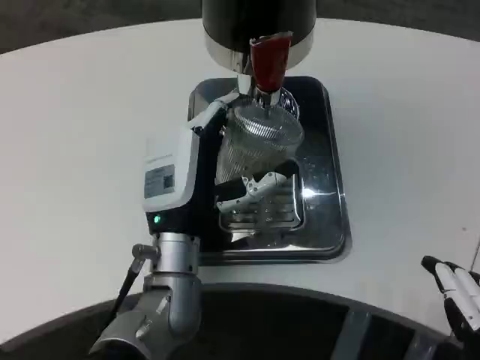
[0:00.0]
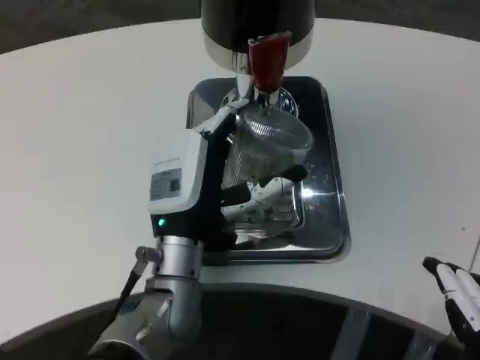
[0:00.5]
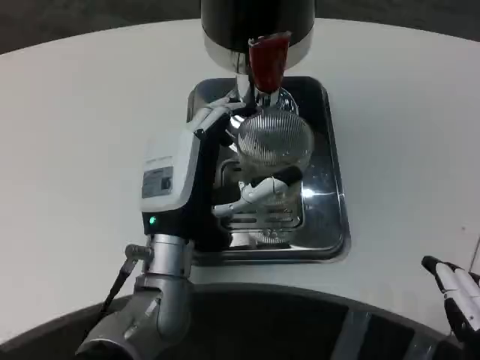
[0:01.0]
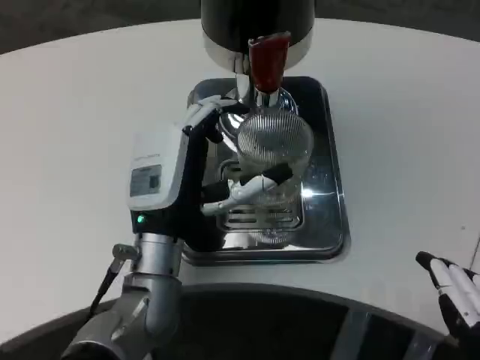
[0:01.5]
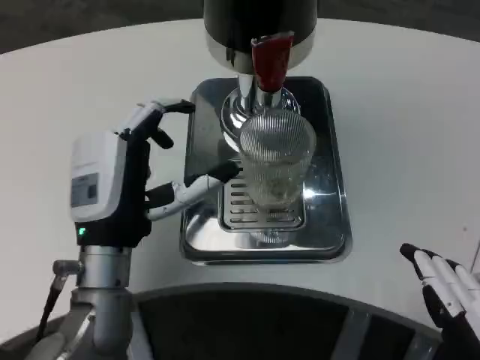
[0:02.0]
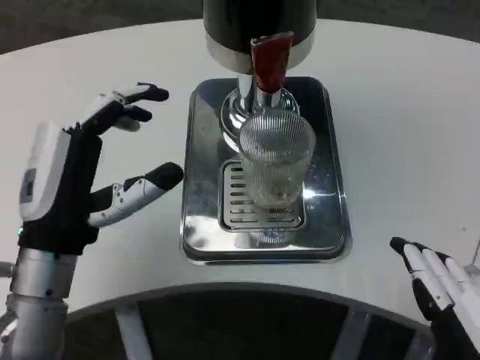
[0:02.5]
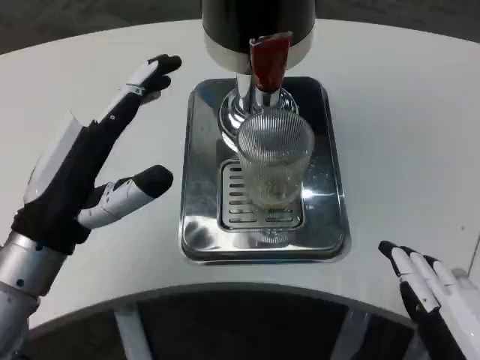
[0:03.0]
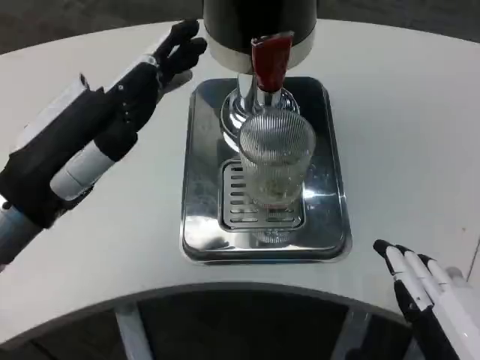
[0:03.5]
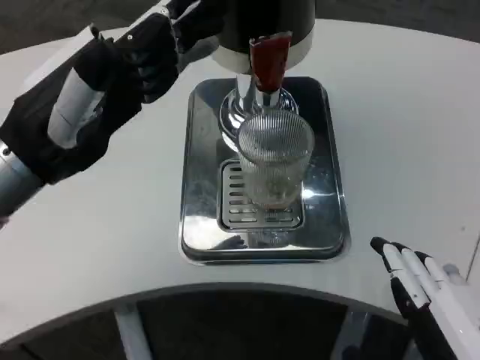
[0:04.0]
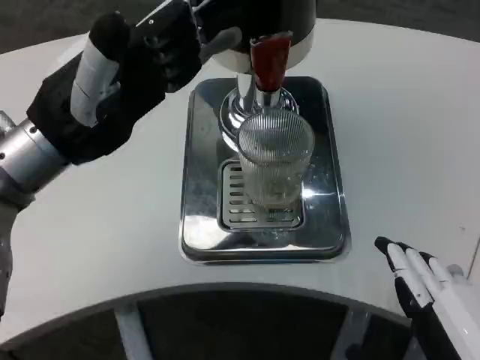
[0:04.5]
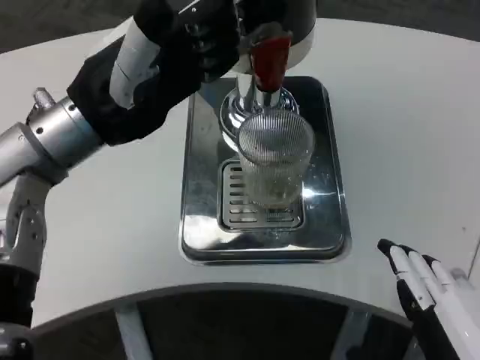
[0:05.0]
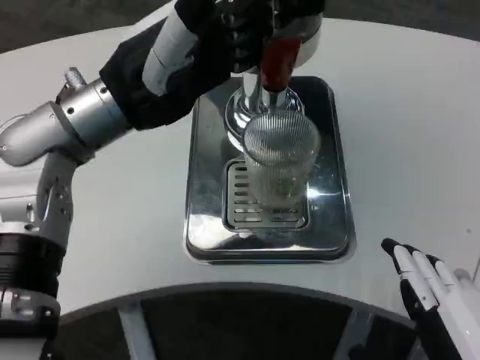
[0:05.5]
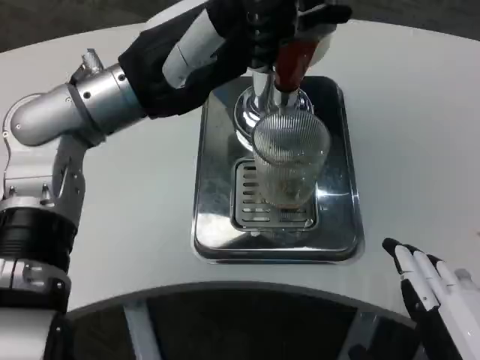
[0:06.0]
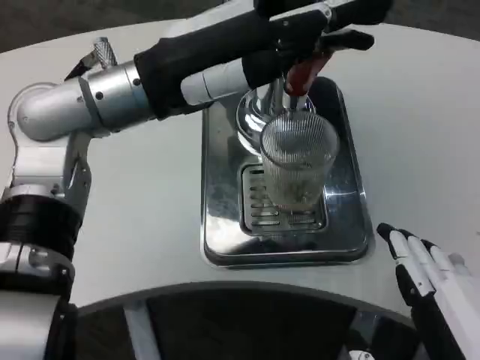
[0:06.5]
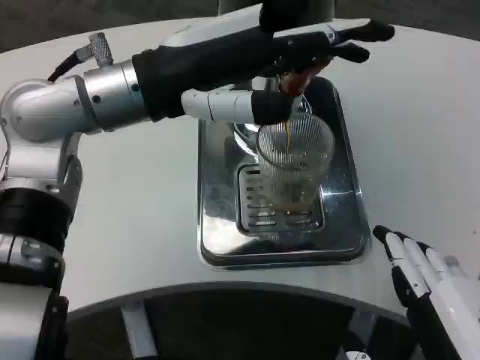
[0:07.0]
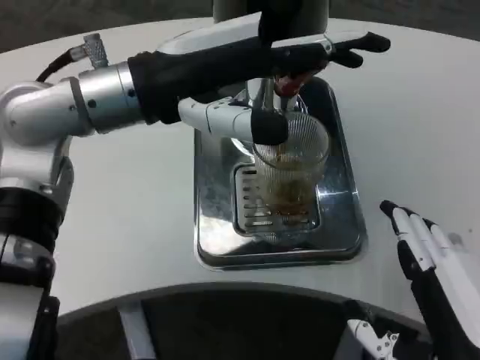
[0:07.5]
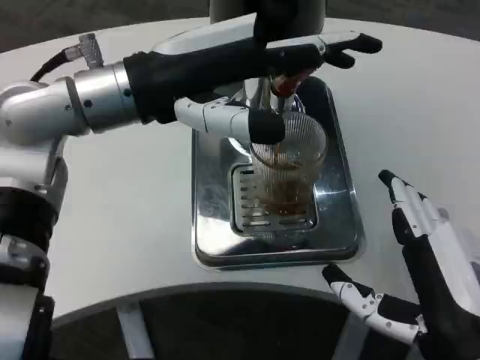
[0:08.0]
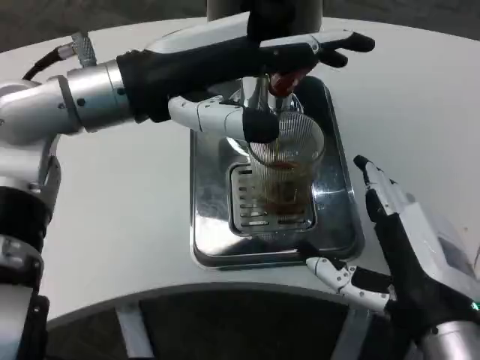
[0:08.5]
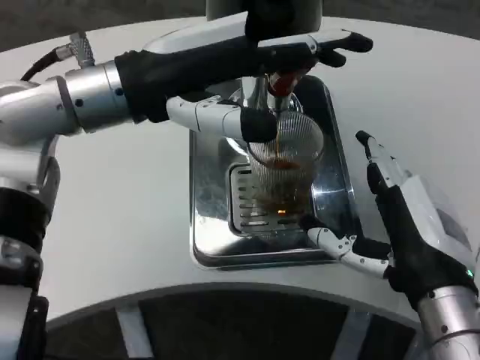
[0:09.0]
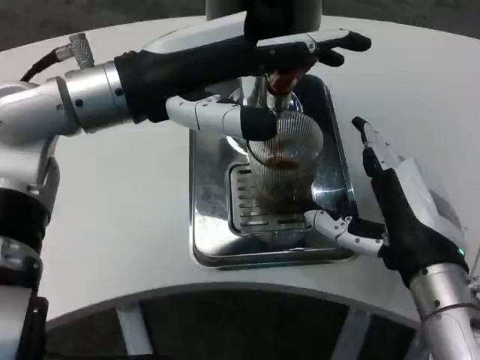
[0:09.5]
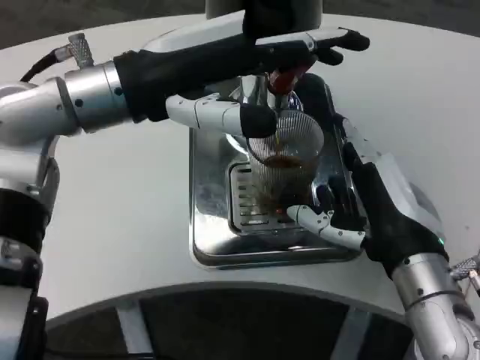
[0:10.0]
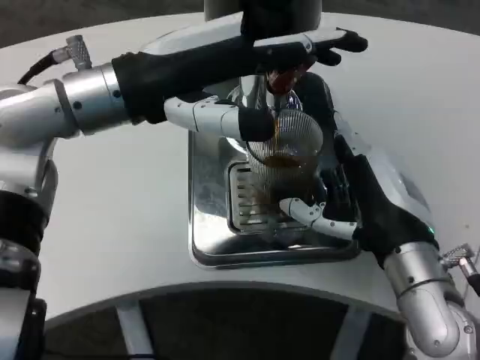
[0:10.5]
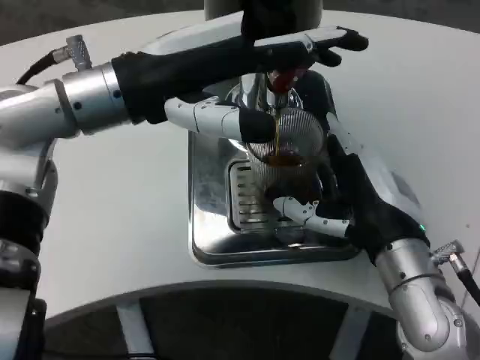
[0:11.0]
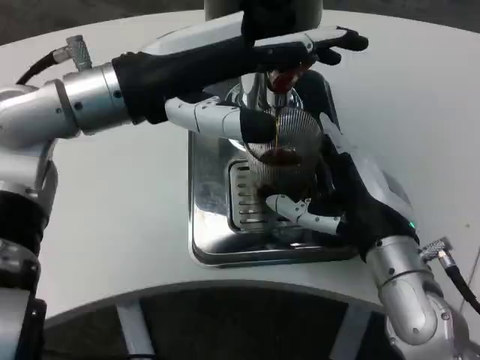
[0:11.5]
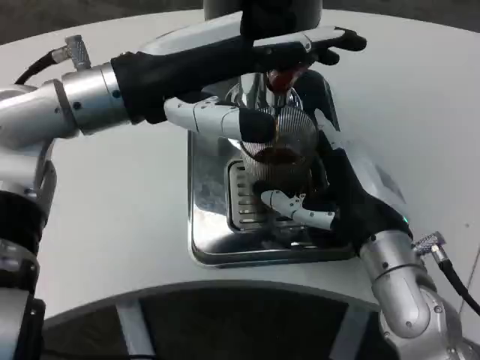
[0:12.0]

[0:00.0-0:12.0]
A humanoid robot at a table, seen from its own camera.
Task of the whole recording: Grasp the cup under the faucet to collect the drink, then remove the cup.
0:00.0 to 0:02.0: The left hand travels to the left by roughly 5 cm.
0:02.0 to 0:04.0: The left hand is displaced upward and to the left by approximately 15 cm.
0:04.0 to 0:06.0: The left hand goes roughly 10 cm forward and to the right.
0:06.0 to 0:08.0: The right hand shifts approximately 5 cm forward.
0:08.0 to 0:10.0: The right hand travels forward by approximately 10 cm.

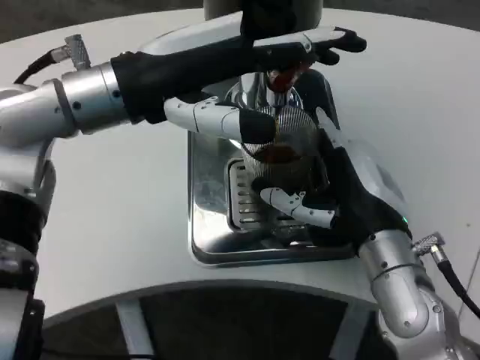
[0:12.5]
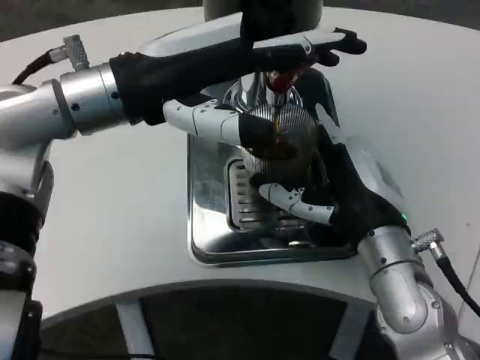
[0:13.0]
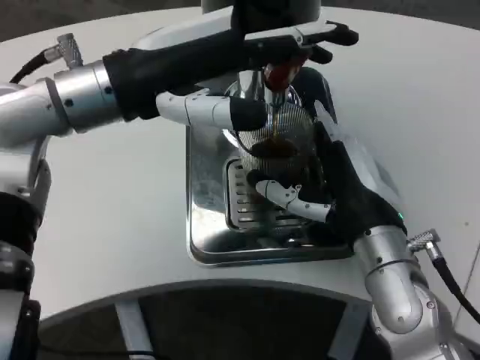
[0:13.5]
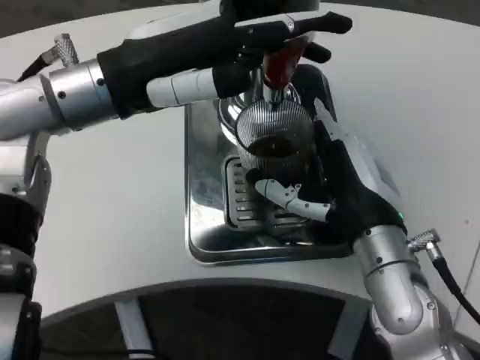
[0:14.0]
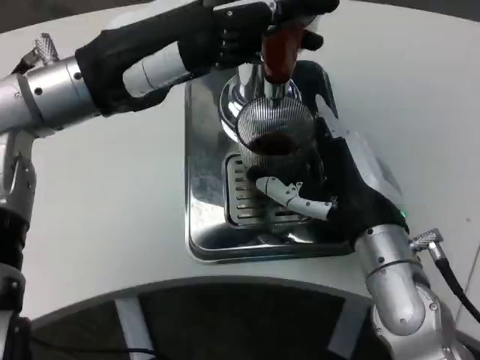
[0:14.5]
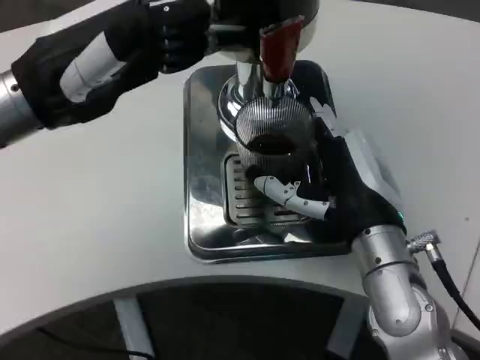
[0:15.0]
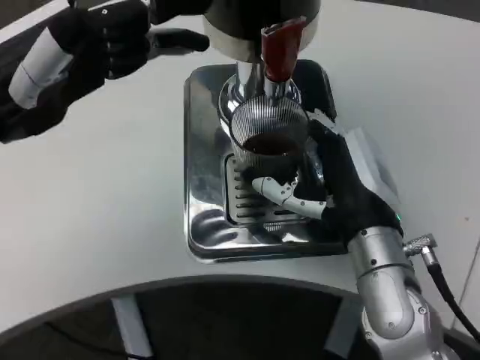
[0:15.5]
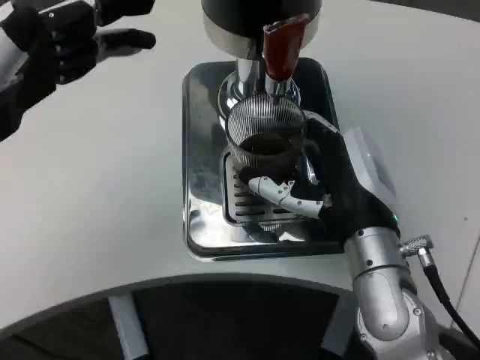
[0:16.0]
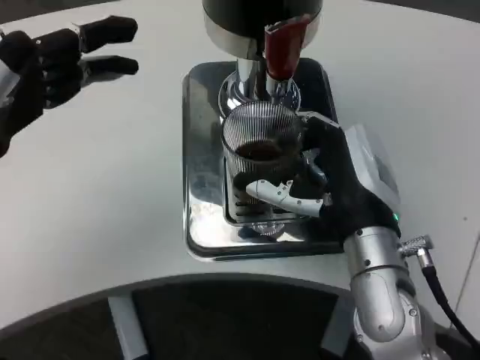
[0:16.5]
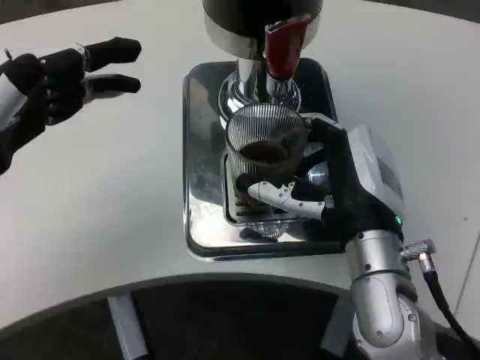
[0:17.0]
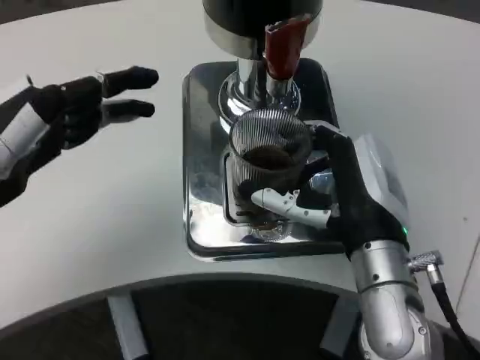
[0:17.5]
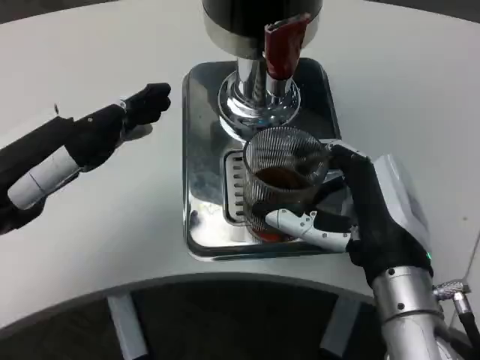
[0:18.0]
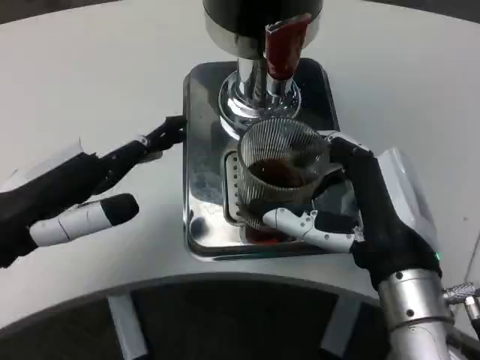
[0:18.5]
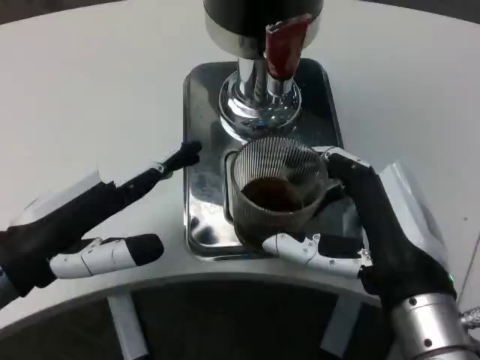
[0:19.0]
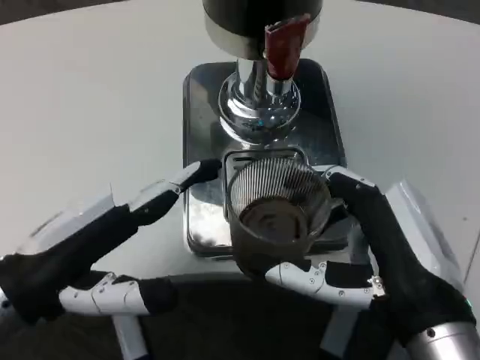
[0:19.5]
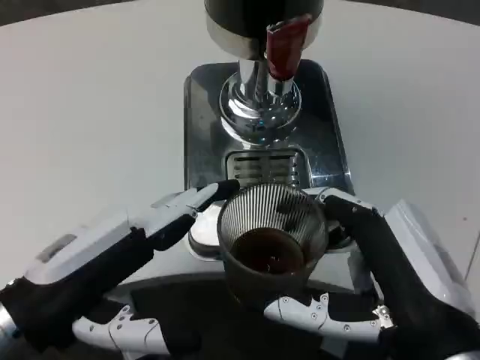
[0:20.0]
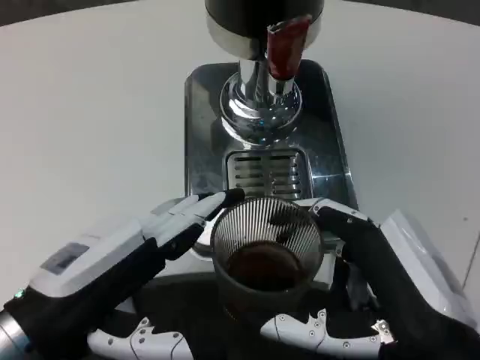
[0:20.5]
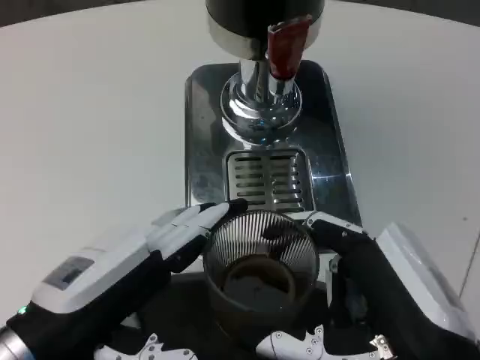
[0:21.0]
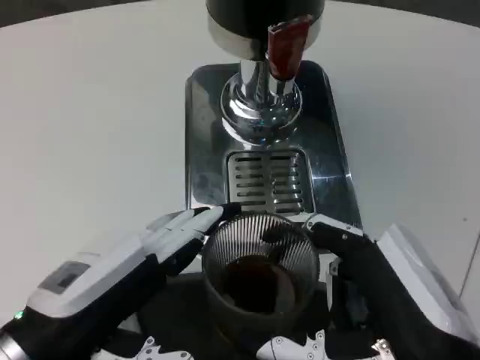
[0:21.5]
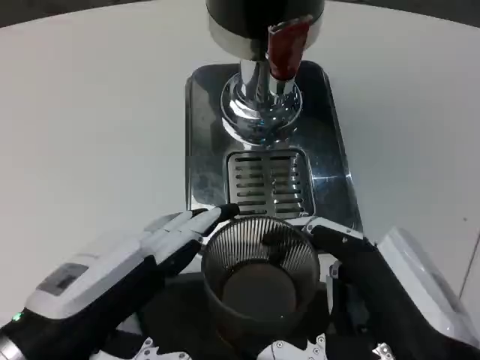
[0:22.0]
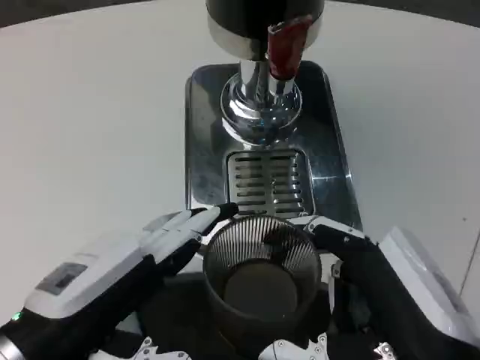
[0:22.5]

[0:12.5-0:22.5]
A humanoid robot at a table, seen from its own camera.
Task of the whole recording: Grasp the cup under the faucet to collect the drink, then remove the cup.
0:14.5 to 0:16.5: The left hand is displaced to the left and backward by roughly 10 cm.
0:16.5 to 0:18.5: The right hand is displaced backward by approximately 5 cm, while the left hand travels downward by roughly 5 cm.
0:18.5 to 0:20.5: The right hand heads backward, covering roughly 10 cm. The left hand moves backward and to the right, approximately 10 cm.
0:20.5 to 0:22.5: The hands make only small movements.

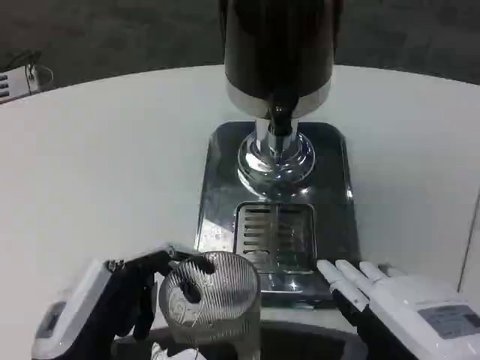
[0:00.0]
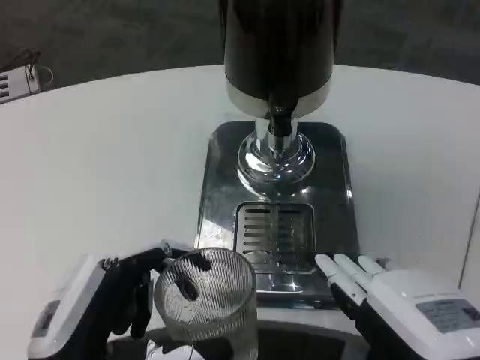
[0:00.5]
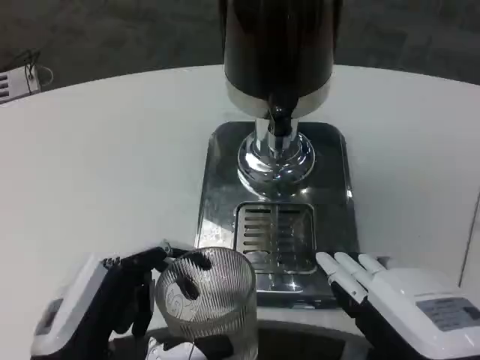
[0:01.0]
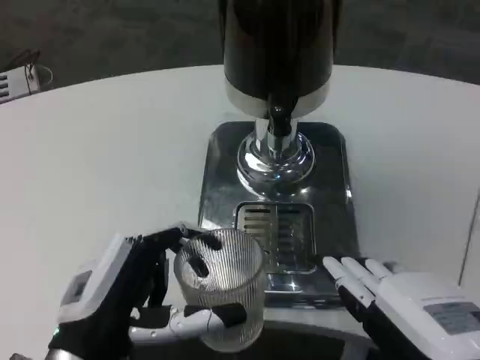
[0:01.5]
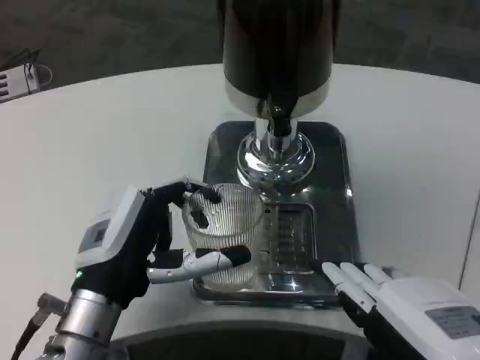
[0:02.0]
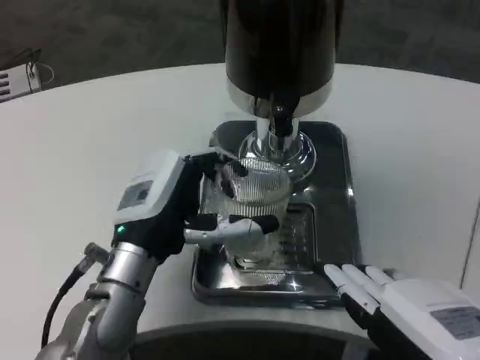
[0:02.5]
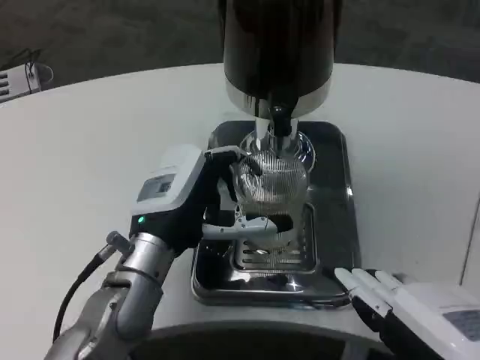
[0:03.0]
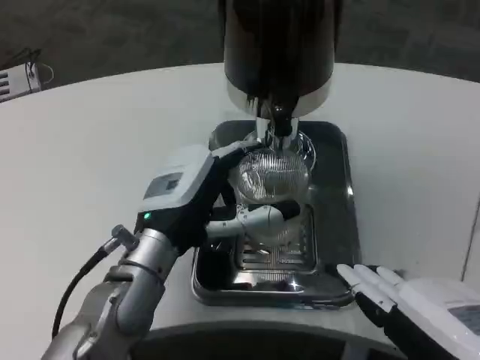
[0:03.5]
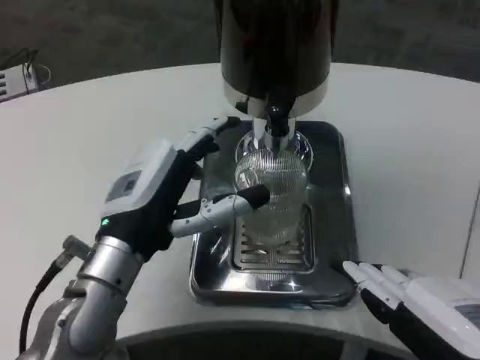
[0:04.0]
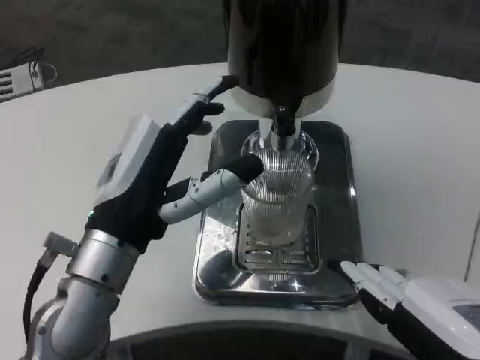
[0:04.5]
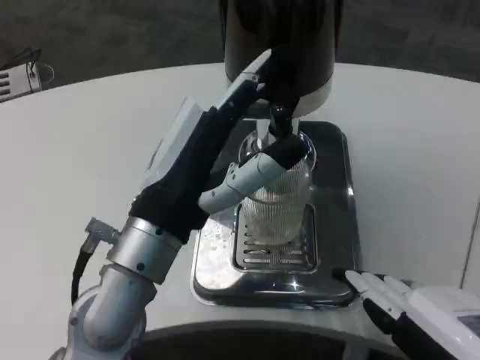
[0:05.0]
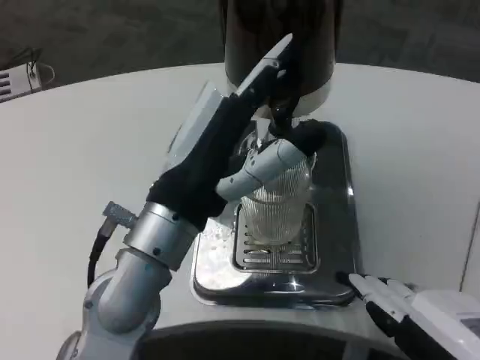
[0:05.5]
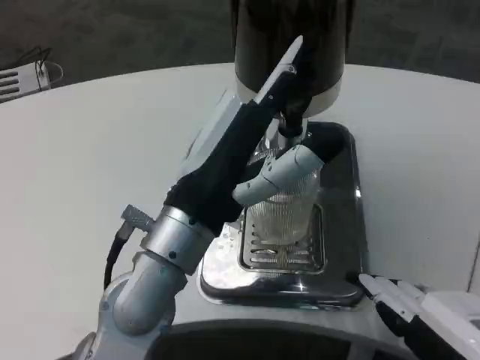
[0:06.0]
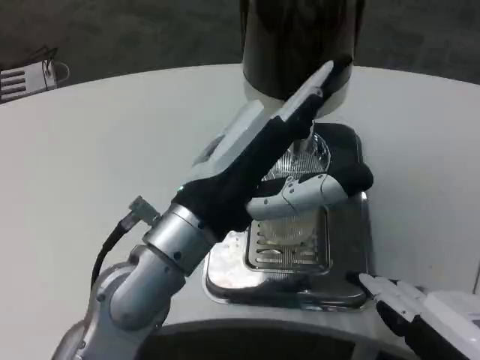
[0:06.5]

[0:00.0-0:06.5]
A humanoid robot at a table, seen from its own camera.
Task of the whole recording: Grasp the cup under the faucet to collect the drink, then remove the cup.
0:00.0 to 0:02.0: The left hand shifts roughly 10 cm forward.
0:02.0 to 0:04.5: The left hand goes roughly 5 cm upward.
0:04.5 to 0:06.5: The left hand is displaced to the right by some 5 cm.
